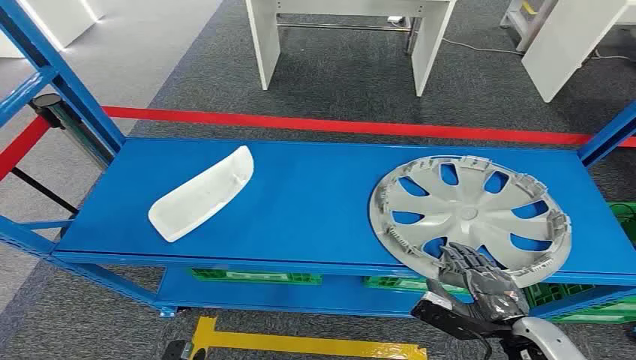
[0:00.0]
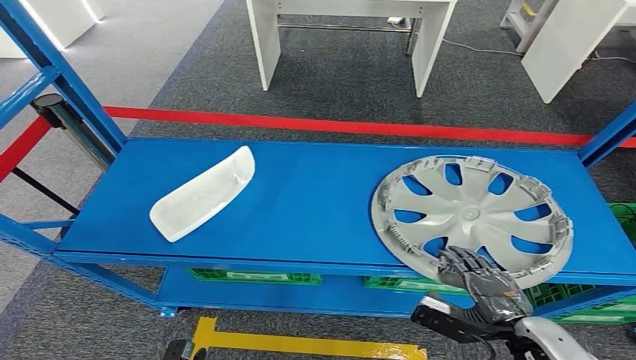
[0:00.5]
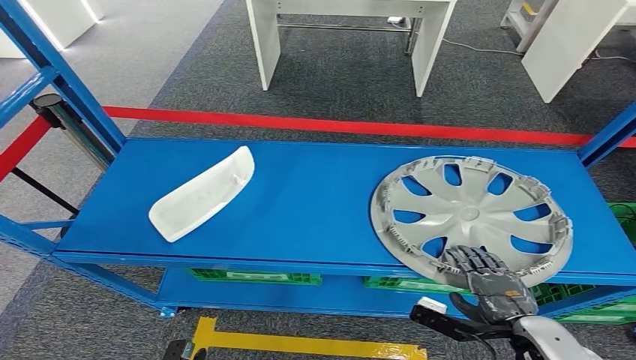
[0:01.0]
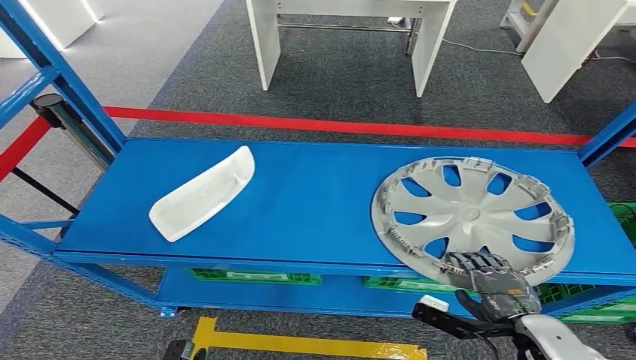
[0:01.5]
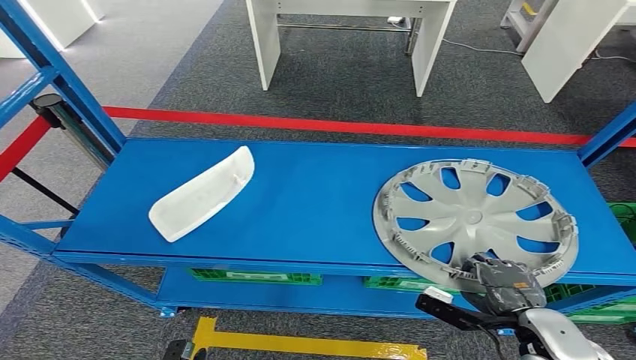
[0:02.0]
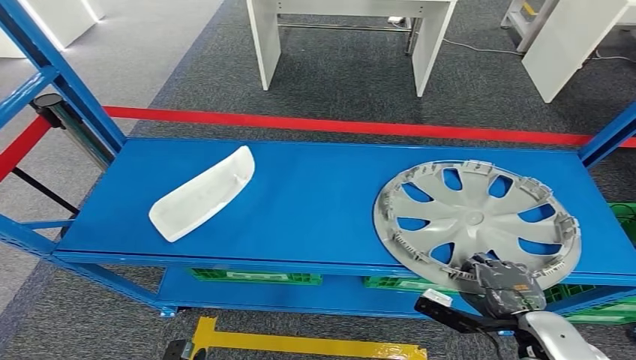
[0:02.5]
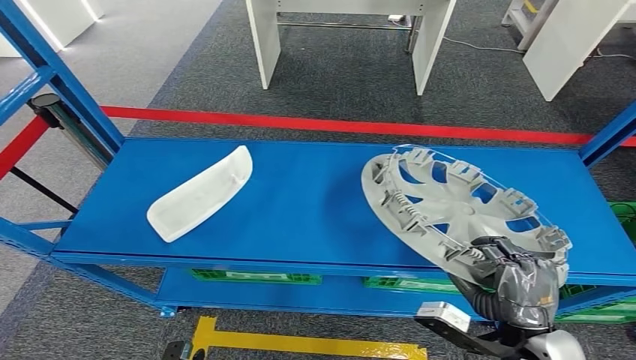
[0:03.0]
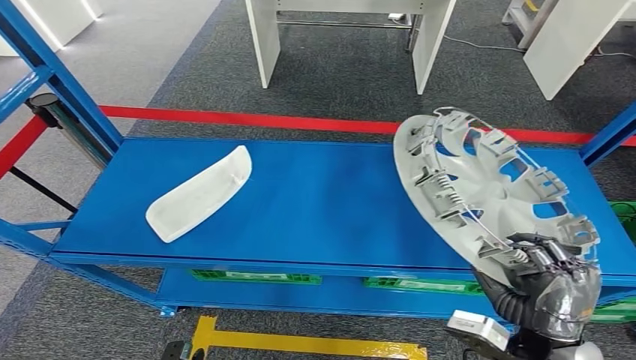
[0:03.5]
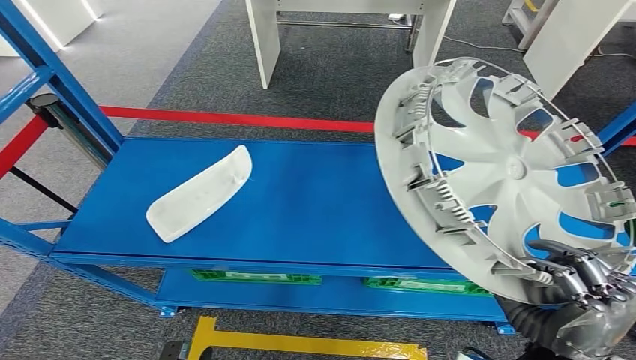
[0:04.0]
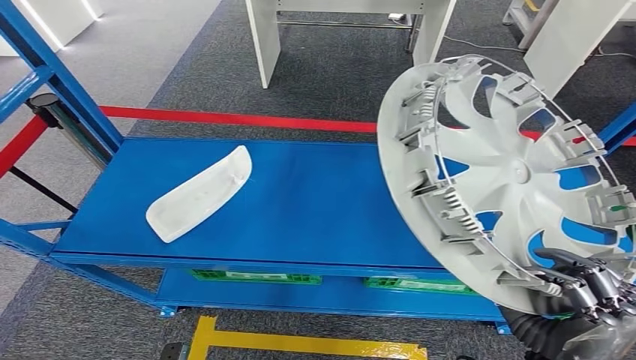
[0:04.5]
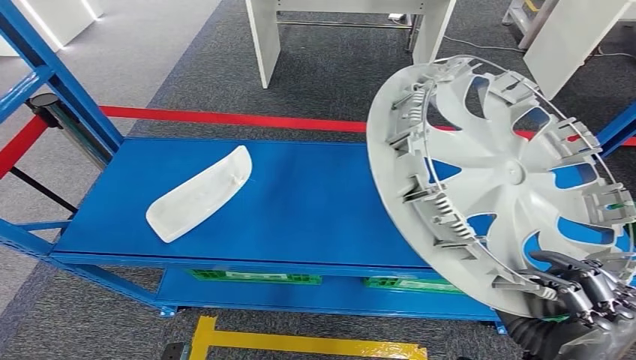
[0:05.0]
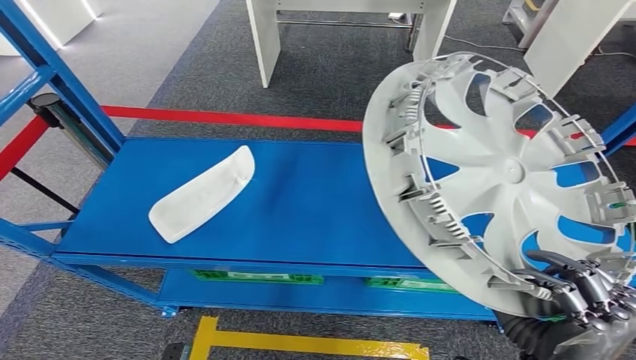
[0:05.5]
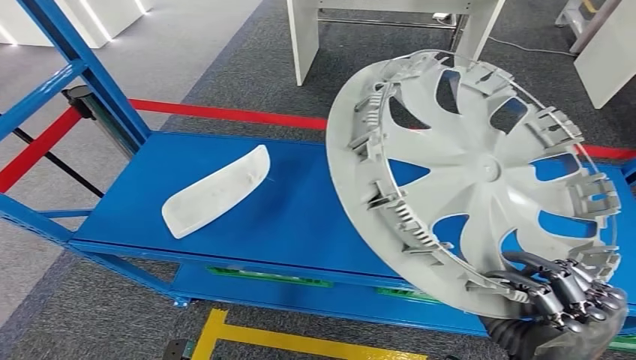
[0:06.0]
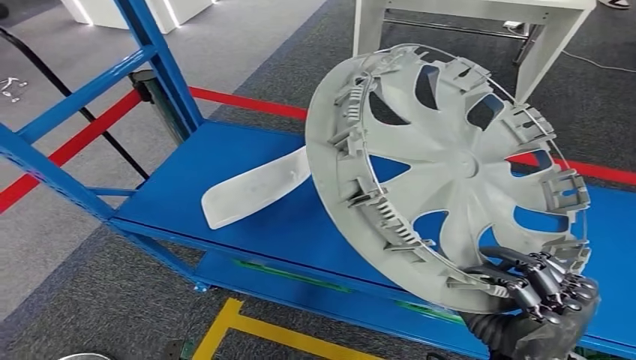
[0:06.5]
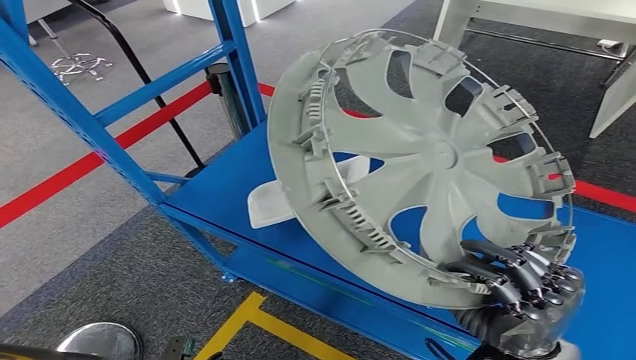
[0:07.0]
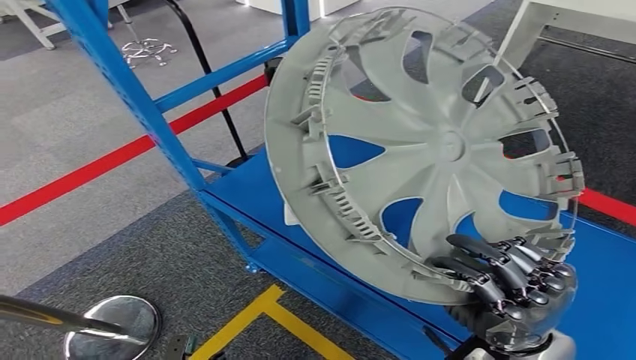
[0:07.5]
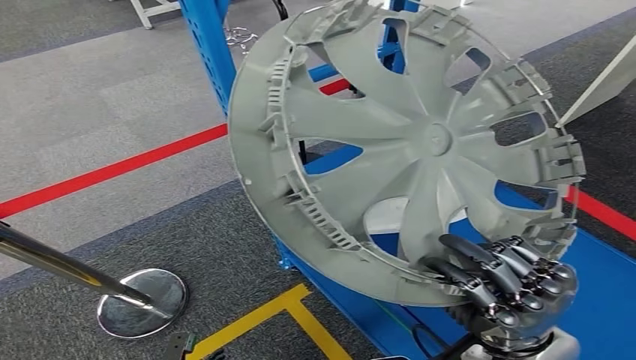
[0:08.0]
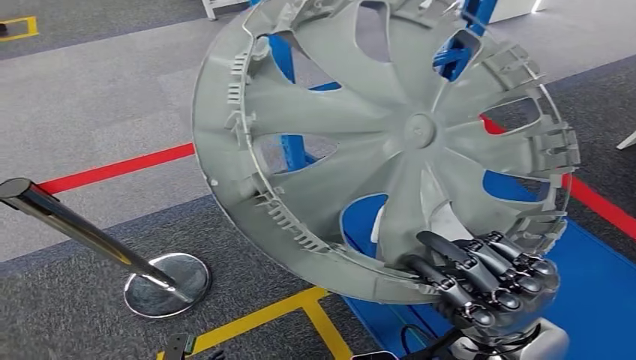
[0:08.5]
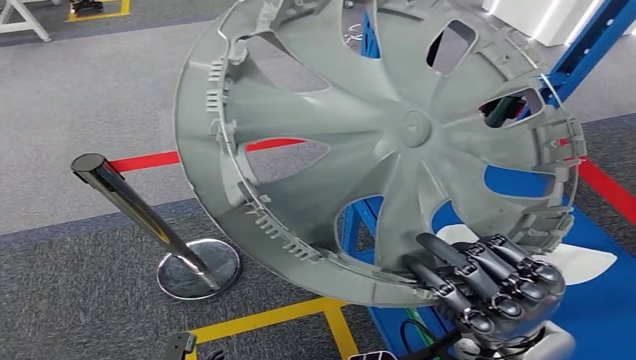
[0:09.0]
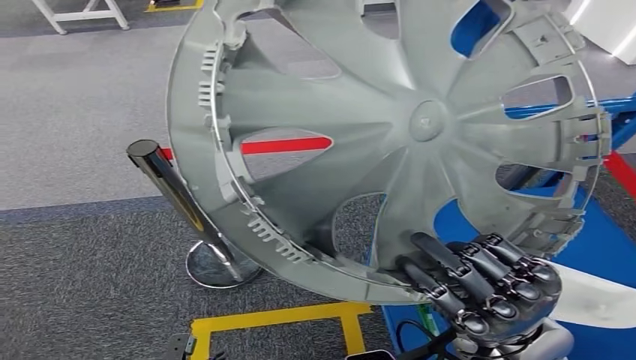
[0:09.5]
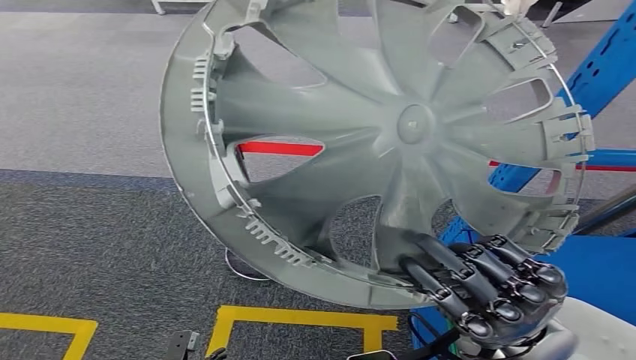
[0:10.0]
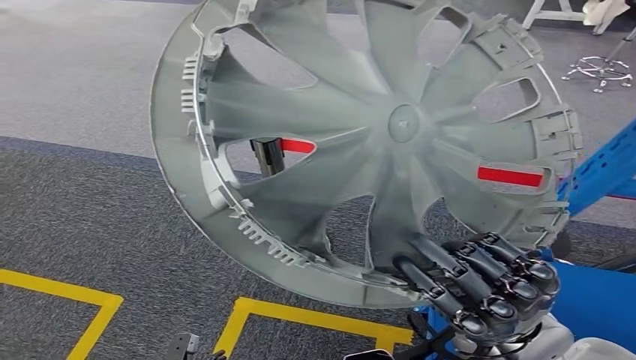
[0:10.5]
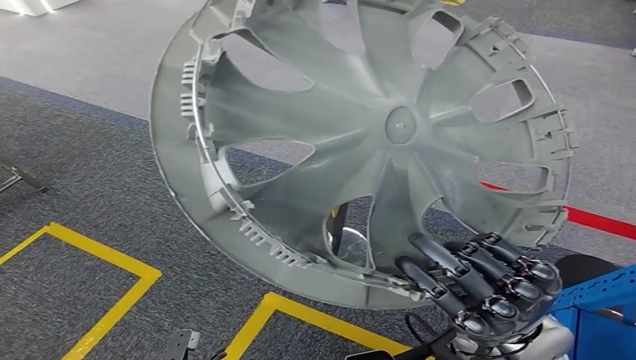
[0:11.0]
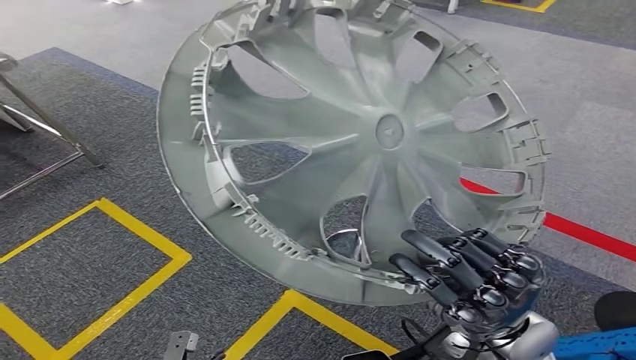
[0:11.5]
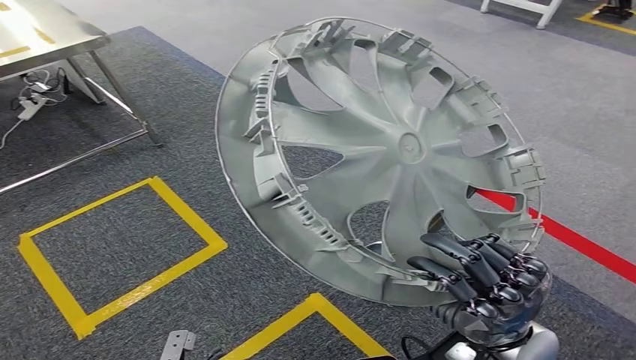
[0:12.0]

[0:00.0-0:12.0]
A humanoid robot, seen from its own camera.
Step, 0:00.0 to 0:03.5: Pick up the small component from the shelf.

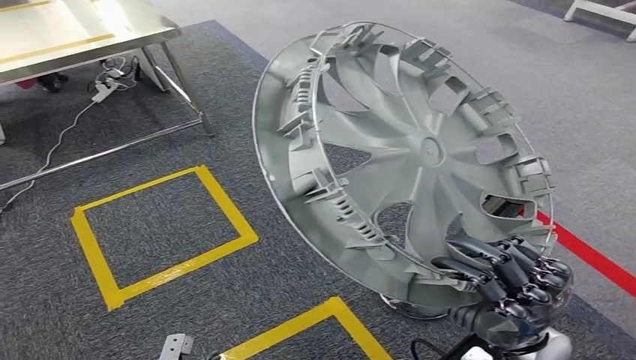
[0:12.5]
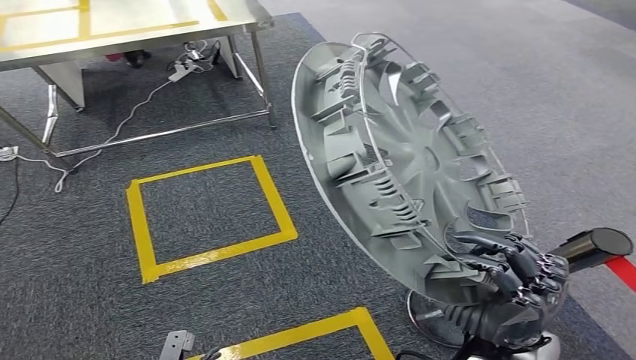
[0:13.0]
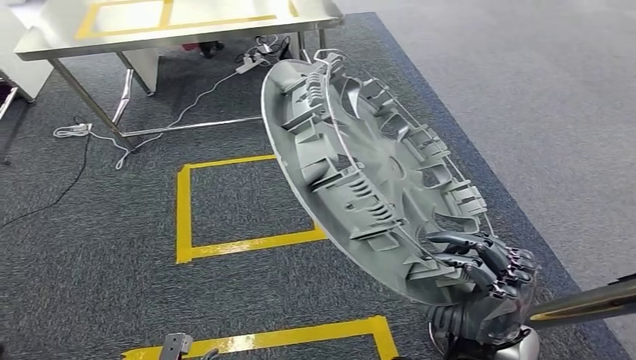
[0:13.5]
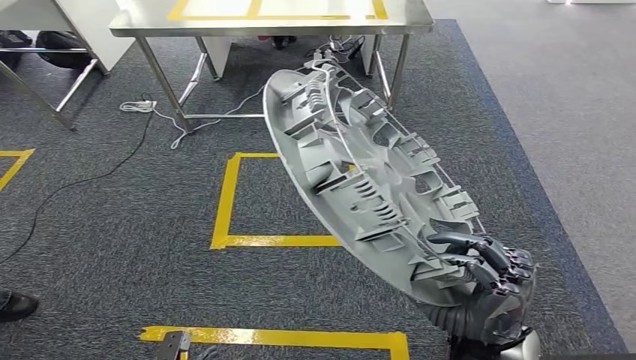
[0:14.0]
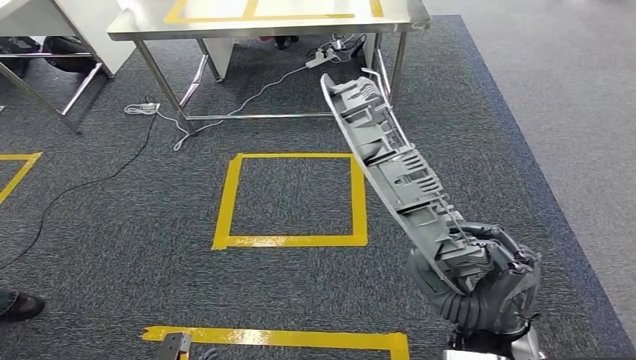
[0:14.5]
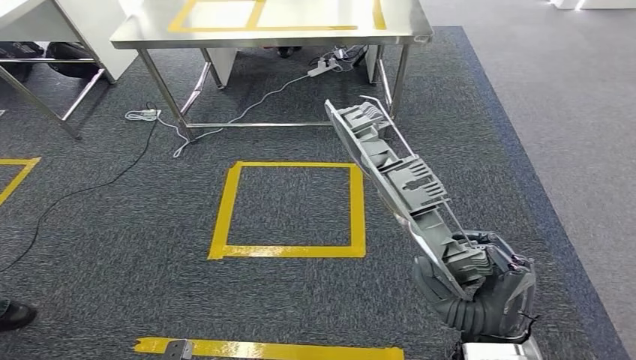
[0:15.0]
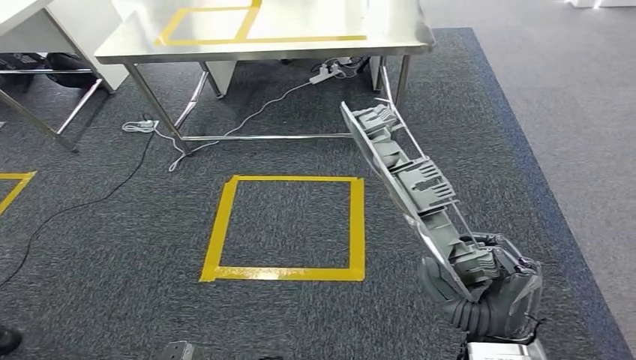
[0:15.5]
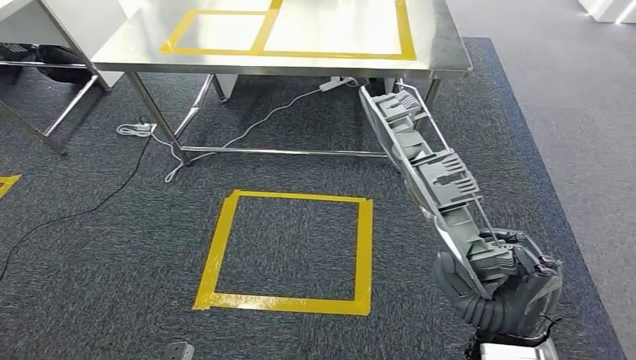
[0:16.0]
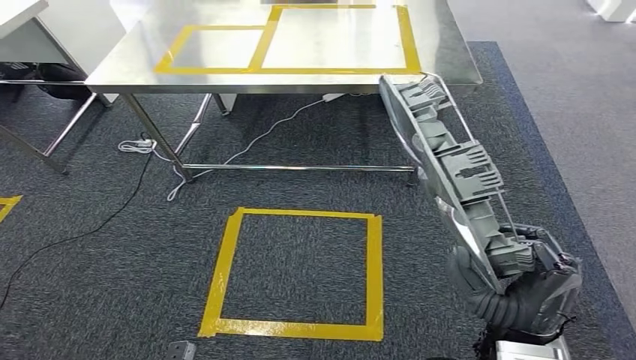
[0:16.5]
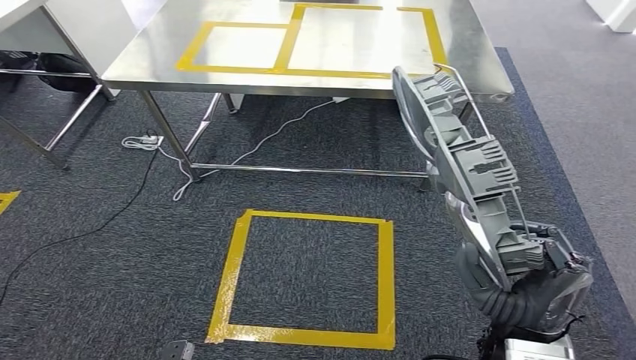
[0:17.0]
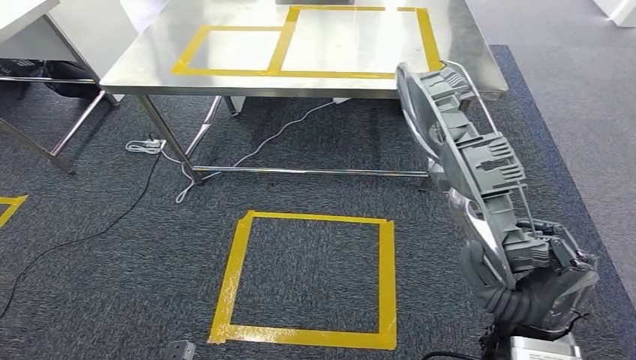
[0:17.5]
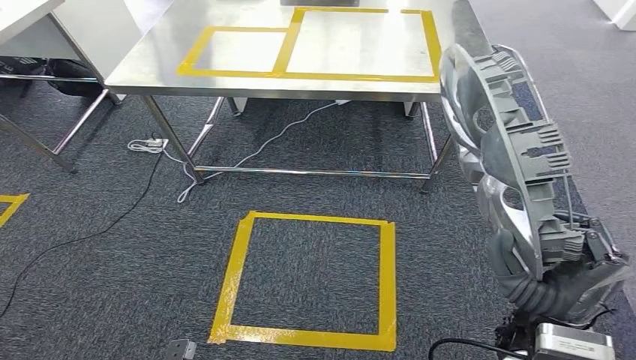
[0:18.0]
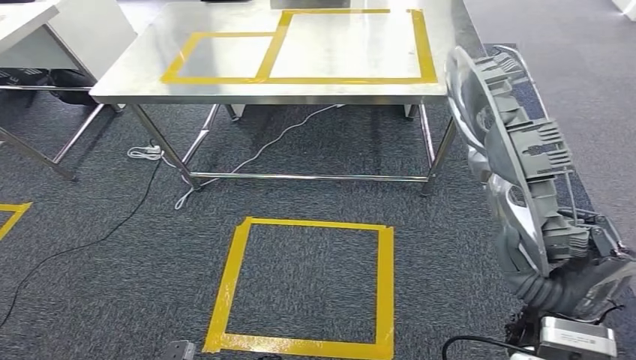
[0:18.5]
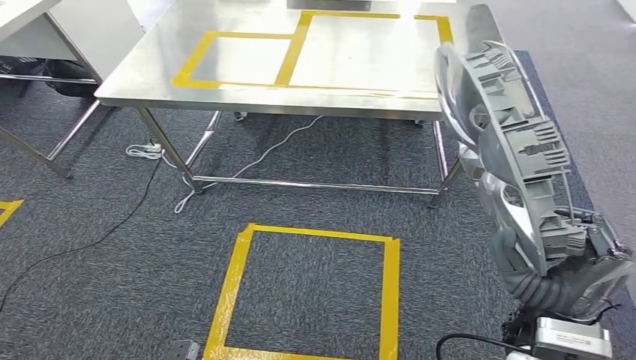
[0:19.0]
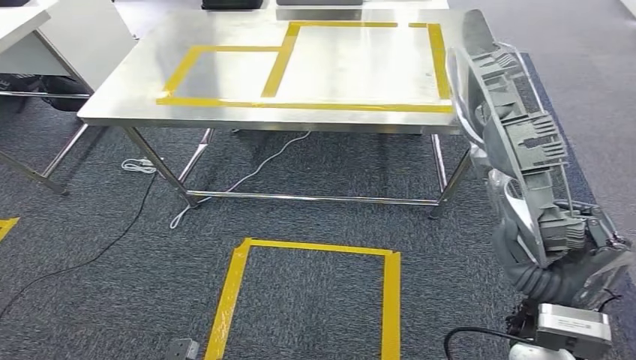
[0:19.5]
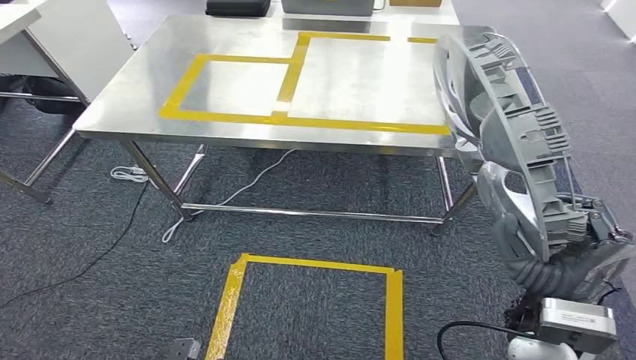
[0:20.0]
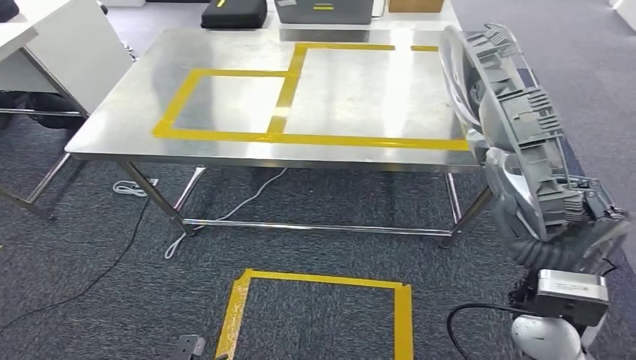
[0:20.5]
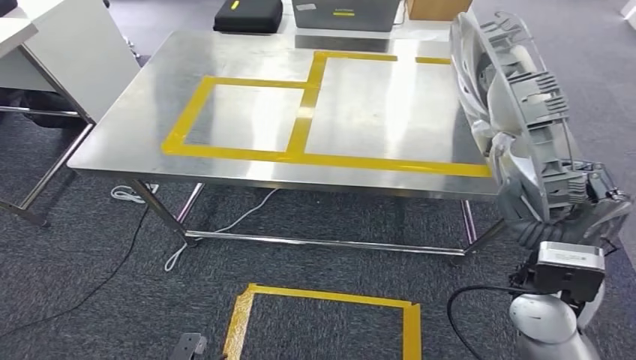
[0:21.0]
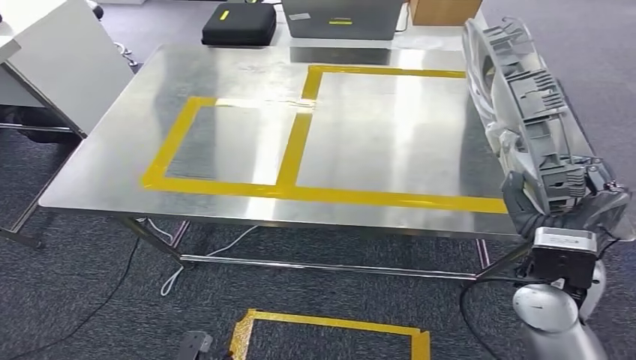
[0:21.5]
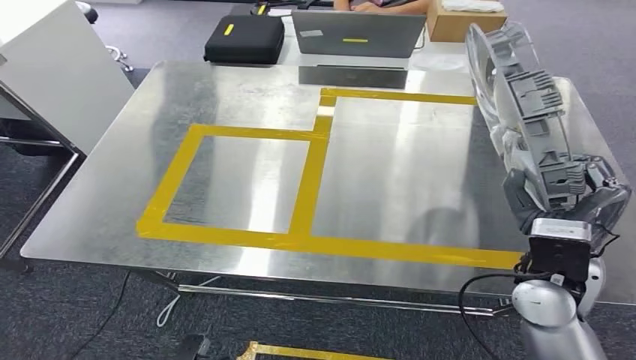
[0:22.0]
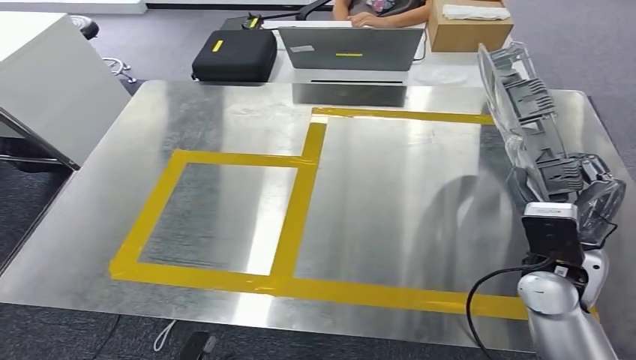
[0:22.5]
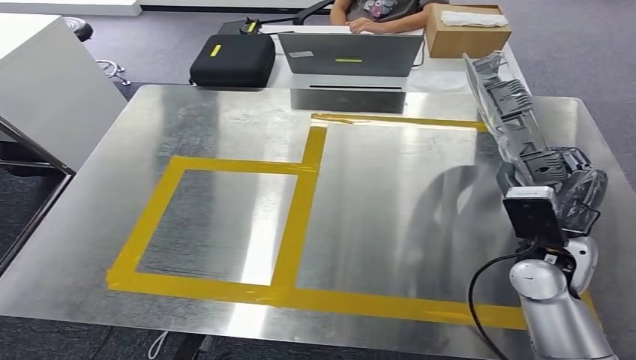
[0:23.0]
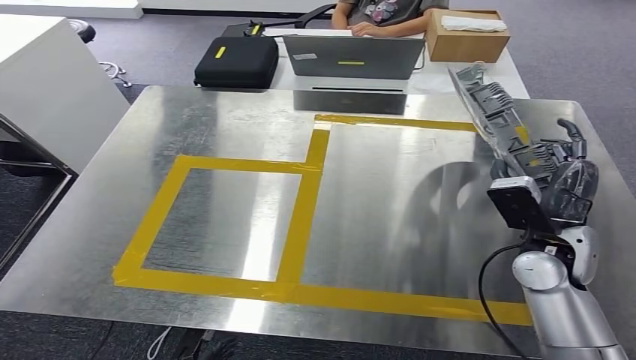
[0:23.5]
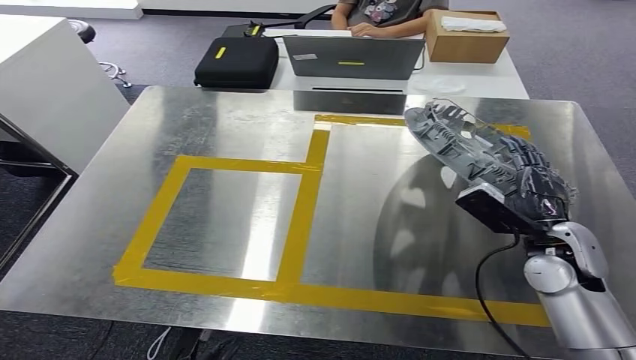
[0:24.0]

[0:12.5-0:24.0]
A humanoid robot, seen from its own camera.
Step, 0:12.5 to 0:20.0: Move the small component to the workbench.
